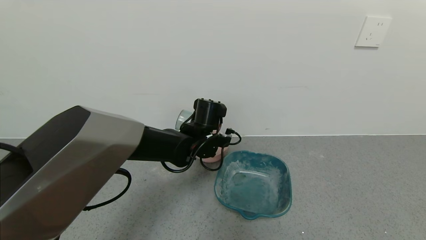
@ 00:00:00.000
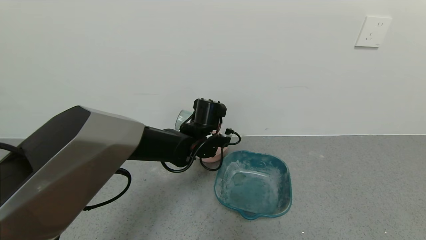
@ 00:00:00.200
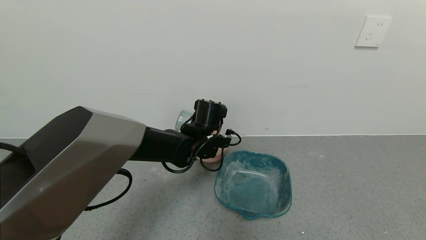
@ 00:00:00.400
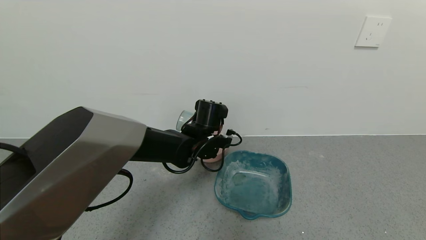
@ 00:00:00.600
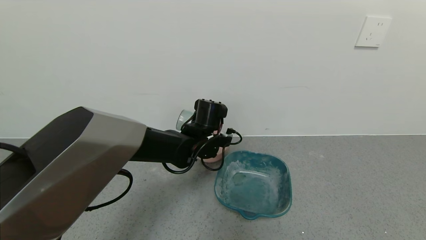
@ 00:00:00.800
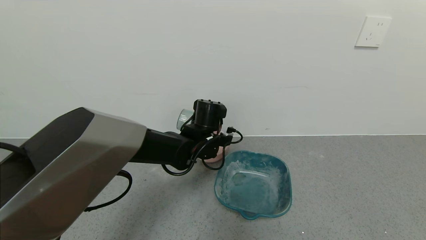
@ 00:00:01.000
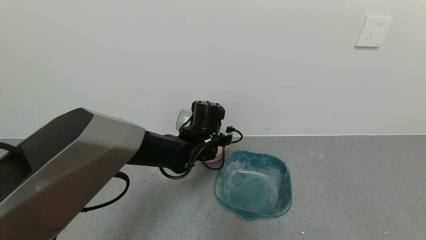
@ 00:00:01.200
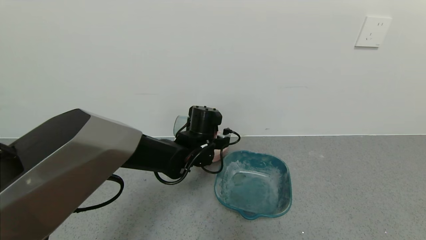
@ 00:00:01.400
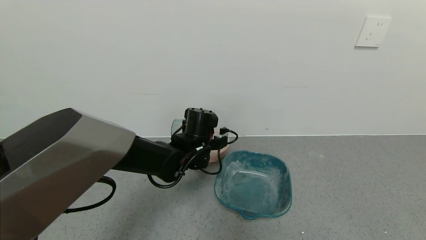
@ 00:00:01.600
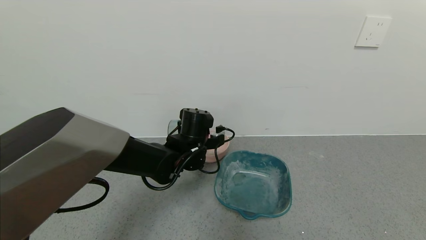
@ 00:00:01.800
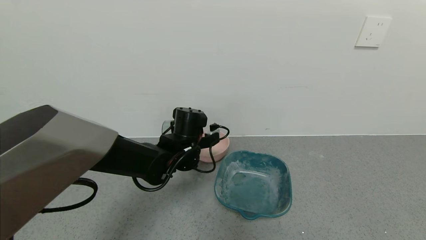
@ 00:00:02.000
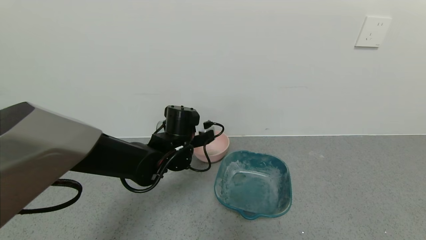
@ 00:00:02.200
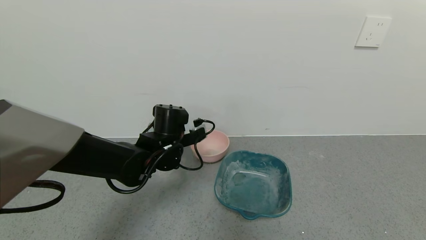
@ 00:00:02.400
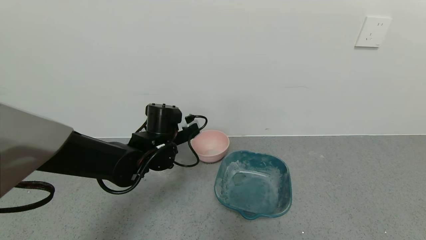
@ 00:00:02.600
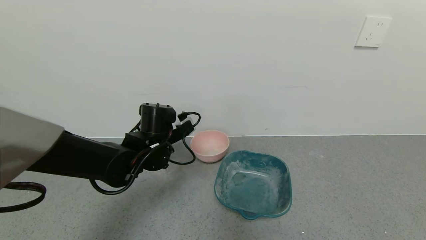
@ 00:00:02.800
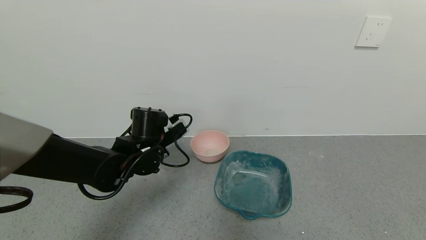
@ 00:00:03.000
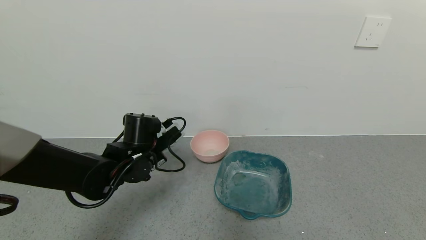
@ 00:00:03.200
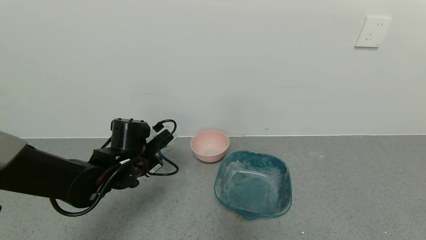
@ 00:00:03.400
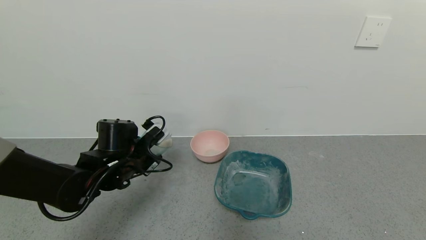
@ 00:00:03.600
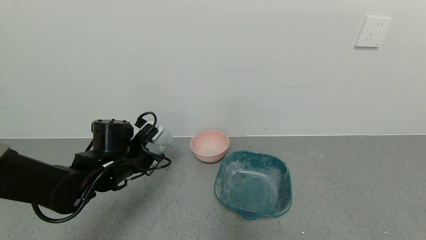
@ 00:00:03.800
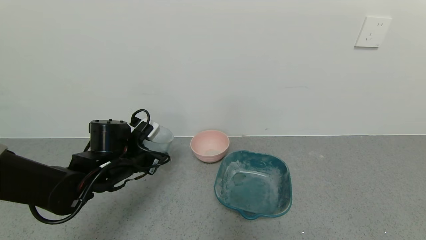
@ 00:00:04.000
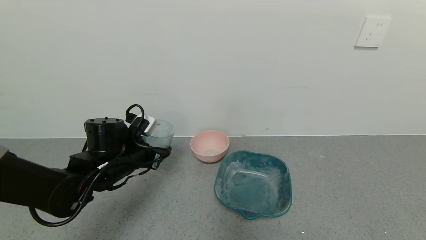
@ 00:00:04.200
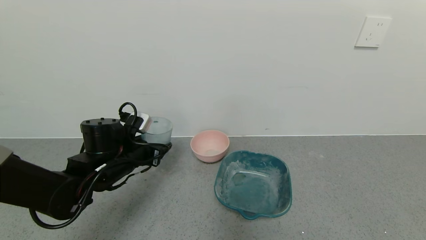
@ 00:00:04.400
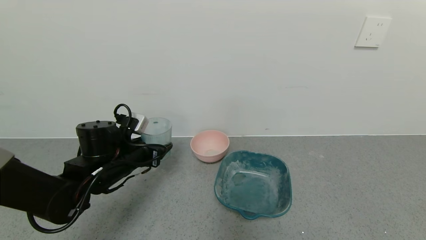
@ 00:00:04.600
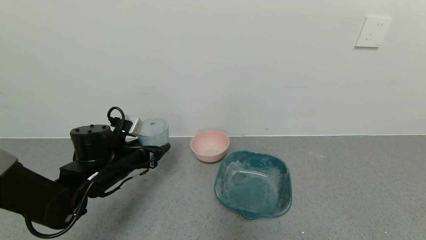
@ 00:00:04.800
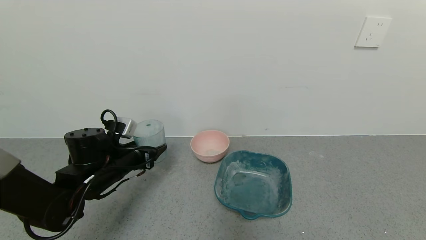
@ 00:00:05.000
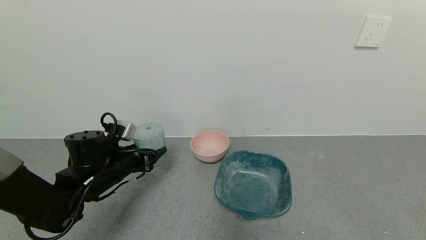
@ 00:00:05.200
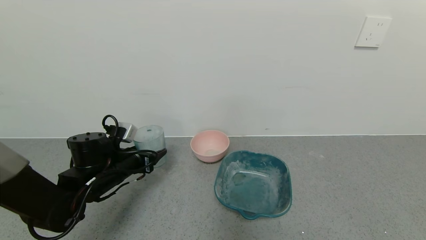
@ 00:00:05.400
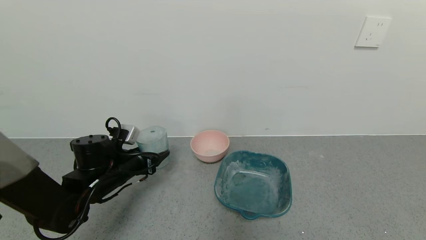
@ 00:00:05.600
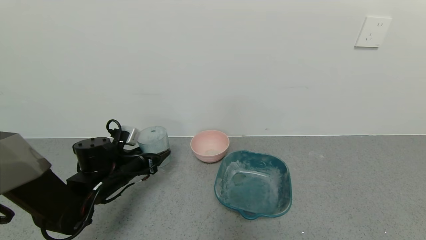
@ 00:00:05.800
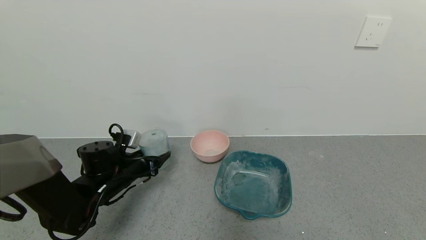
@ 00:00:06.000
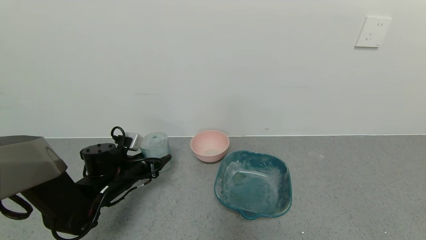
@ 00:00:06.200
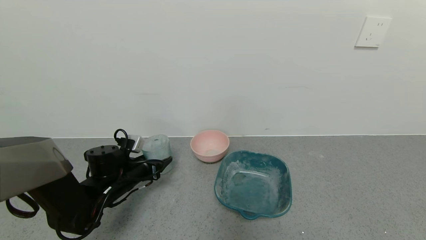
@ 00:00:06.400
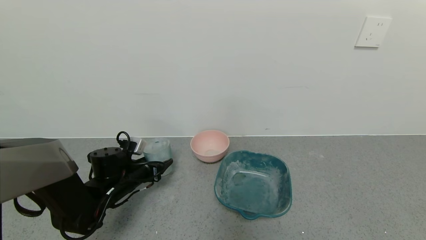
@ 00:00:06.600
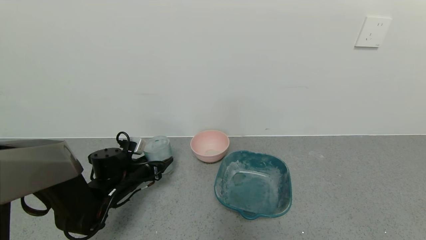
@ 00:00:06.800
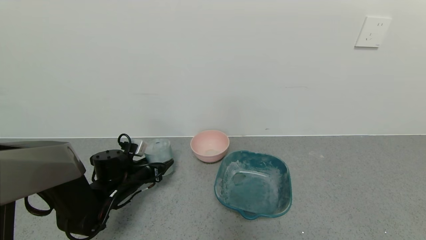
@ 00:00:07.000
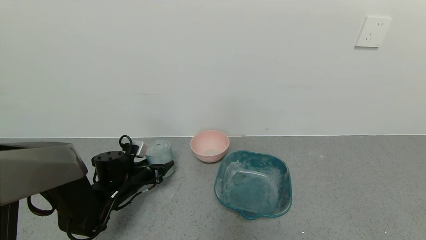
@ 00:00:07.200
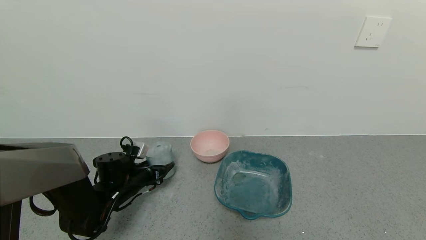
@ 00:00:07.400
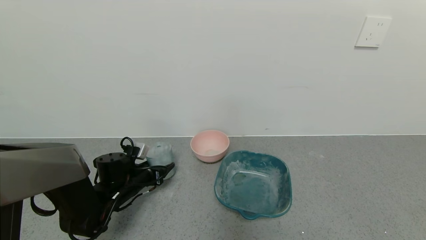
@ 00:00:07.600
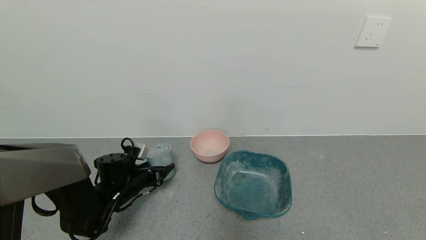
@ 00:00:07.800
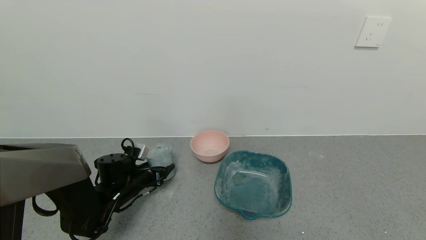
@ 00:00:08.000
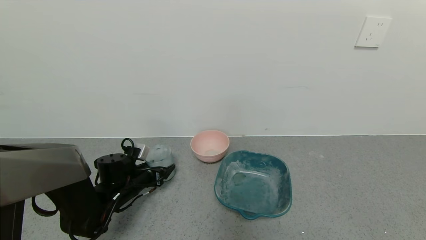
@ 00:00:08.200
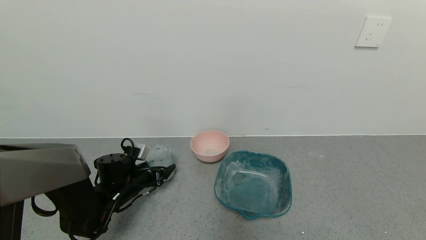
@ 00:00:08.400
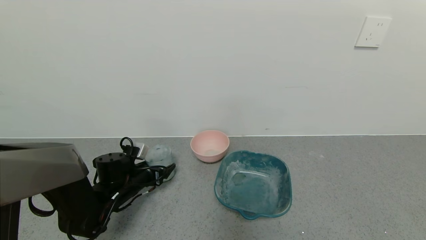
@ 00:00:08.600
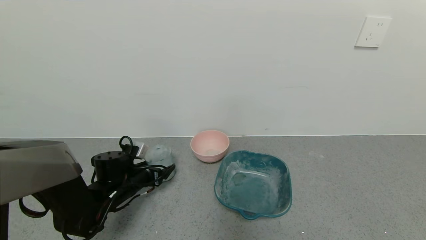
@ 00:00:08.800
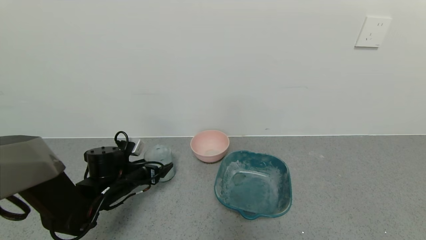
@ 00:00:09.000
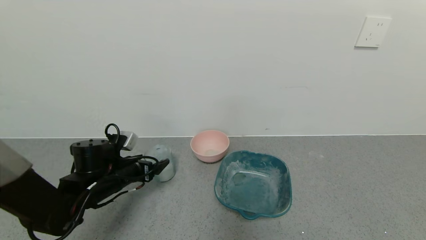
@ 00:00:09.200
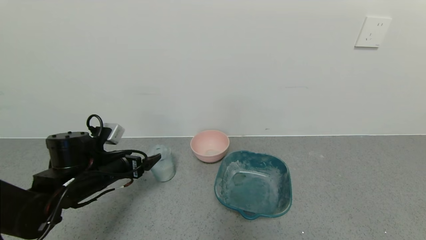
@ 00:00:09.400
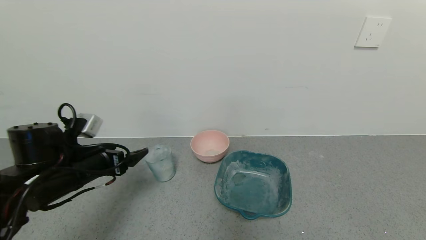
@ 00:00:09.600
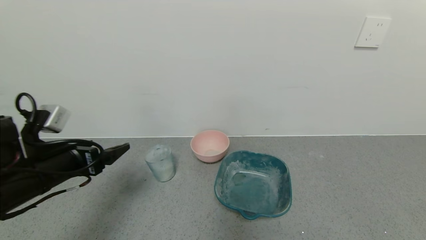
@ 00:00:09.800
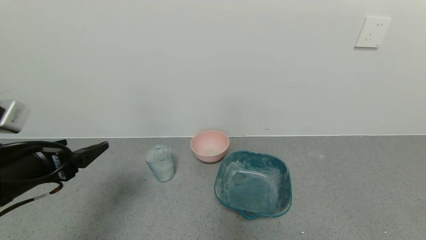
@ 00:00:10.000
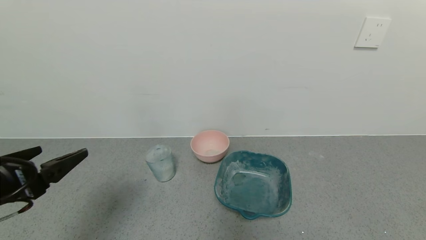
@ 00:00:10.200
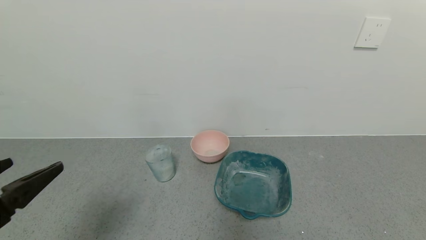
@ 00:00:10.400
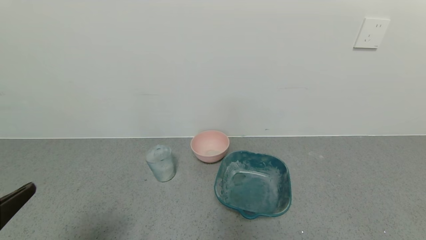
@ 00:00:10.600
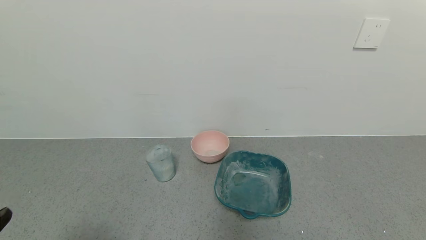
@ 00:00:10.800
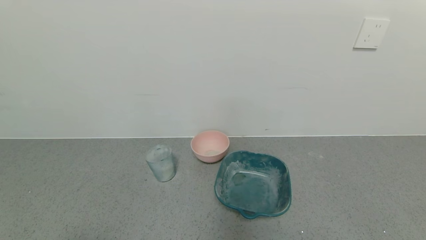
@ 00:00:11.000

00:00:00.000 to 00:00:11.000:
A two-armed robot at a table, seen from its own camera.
Task of the whole recording: use a gripper to pick up the cup and pour the powder into a bowl or tray.
Step, 00:00:01.400 to 00:00:08.400: Place blue cup with coffee powder on the table with left gripper.
00:00:00.000 to 00:00:01.600: The grippers stay close to where they were, moving slightly.
00:00:01.600 to 00:00:03.200: The left gripper goes some 10 cm to the left.
00:00:03.200 to 00:00:04.800: The left gripper heads to the left, covering roughly 5 cm.
00:00:04.800 to 00:00:06.200: The left gripper goes some 5 cm downward.
00:00:06.200 to 00:00:07.800: The grippers make only small movements.
00:00:07.800 to 00:00:09.400: The left gripper travels upward and backward by roughly 10 cm, and opens up.
00:00:09.400 to 00:00:11.000: The left gripper travels backward by about 30 cm.
